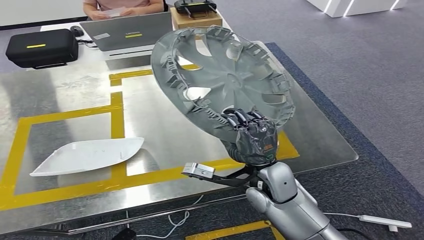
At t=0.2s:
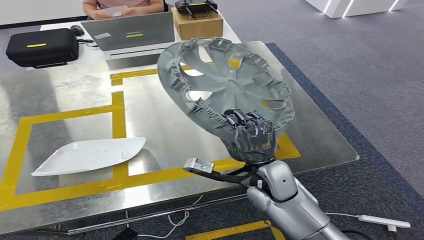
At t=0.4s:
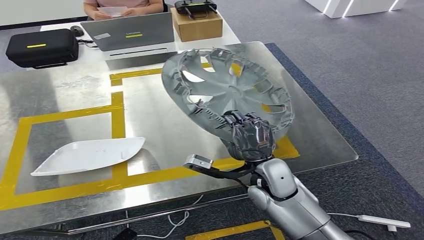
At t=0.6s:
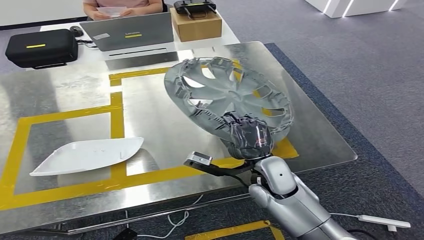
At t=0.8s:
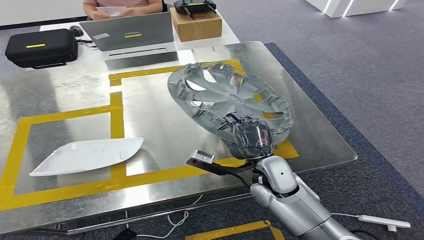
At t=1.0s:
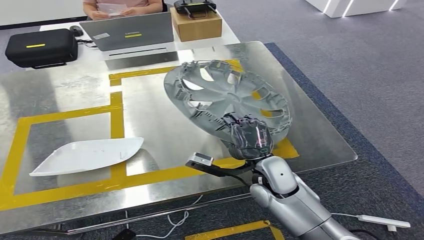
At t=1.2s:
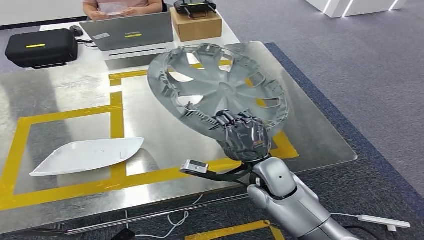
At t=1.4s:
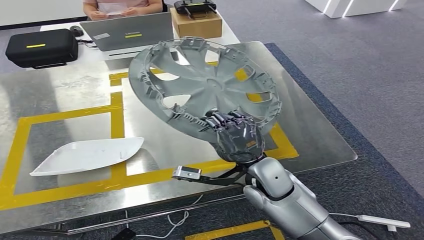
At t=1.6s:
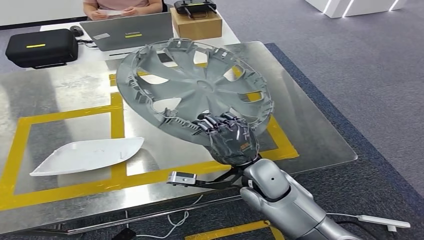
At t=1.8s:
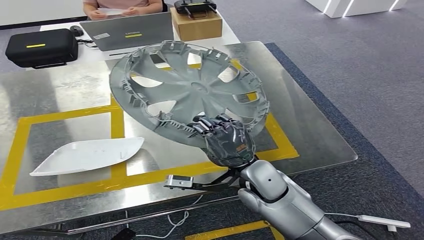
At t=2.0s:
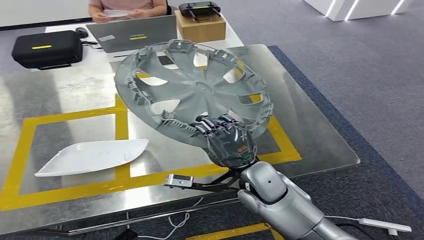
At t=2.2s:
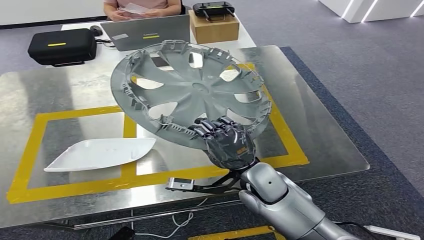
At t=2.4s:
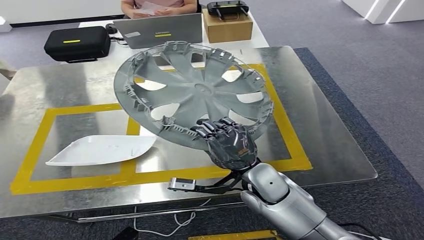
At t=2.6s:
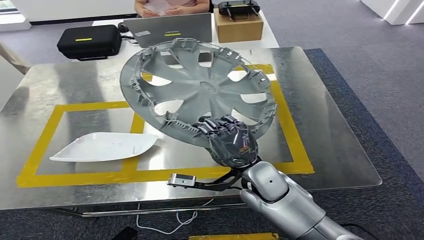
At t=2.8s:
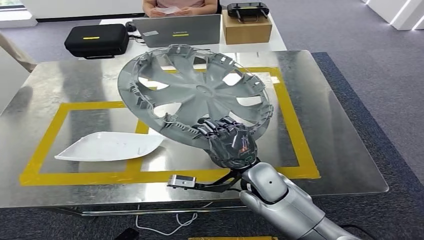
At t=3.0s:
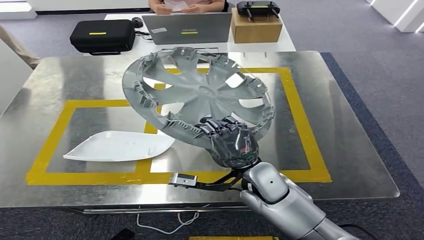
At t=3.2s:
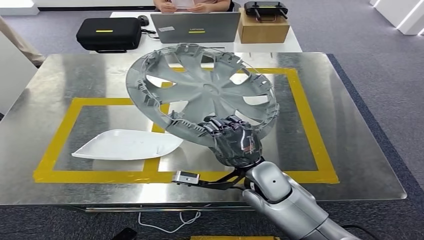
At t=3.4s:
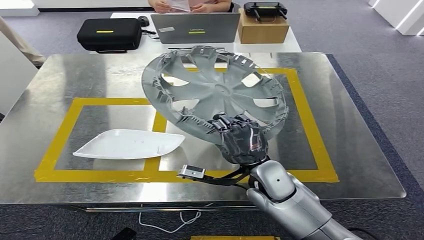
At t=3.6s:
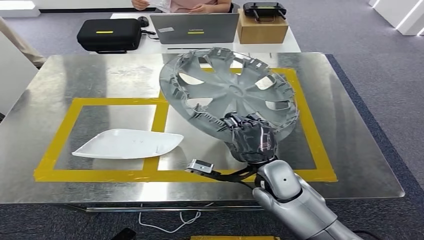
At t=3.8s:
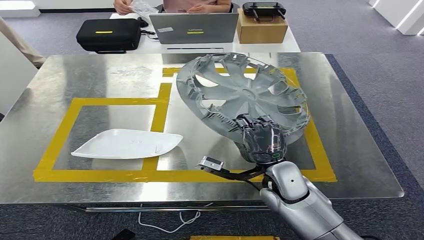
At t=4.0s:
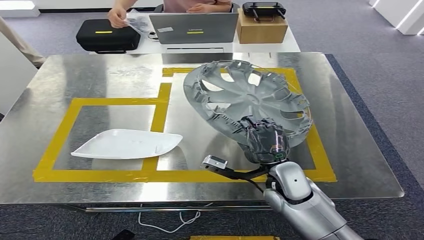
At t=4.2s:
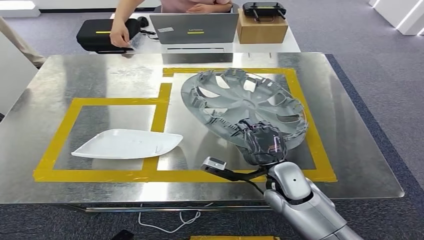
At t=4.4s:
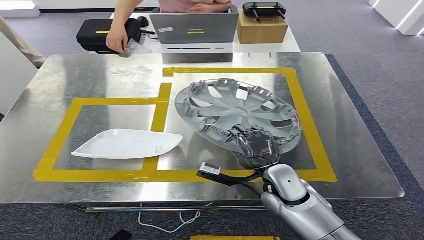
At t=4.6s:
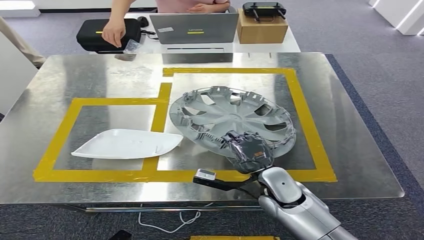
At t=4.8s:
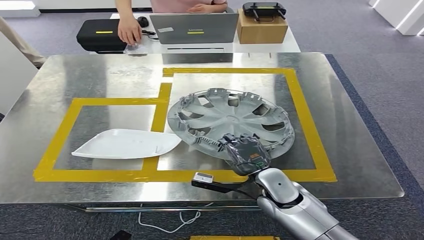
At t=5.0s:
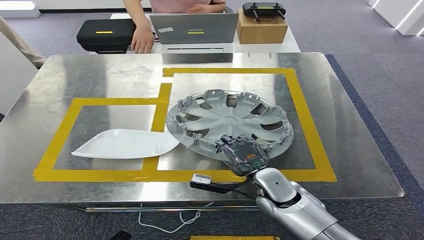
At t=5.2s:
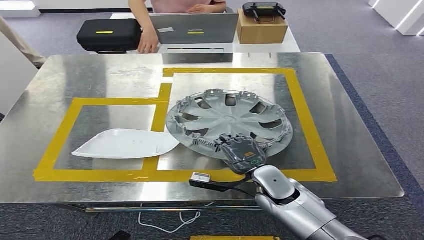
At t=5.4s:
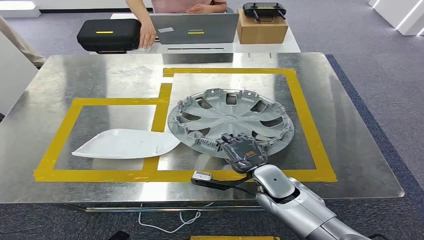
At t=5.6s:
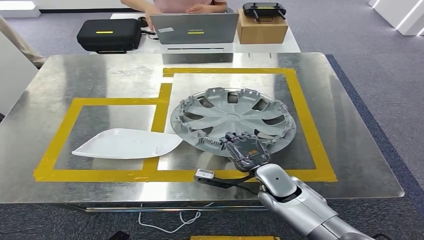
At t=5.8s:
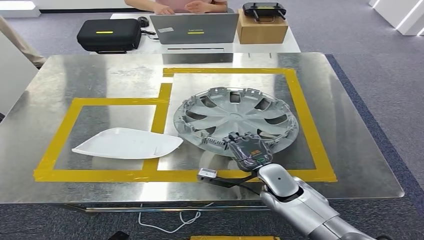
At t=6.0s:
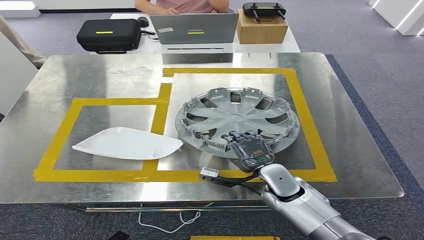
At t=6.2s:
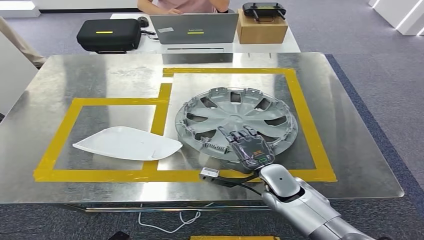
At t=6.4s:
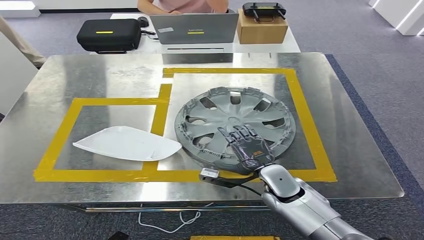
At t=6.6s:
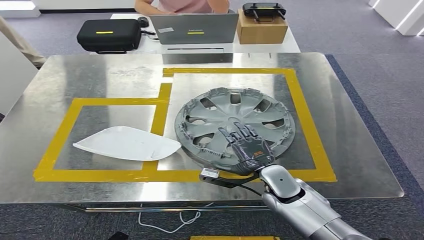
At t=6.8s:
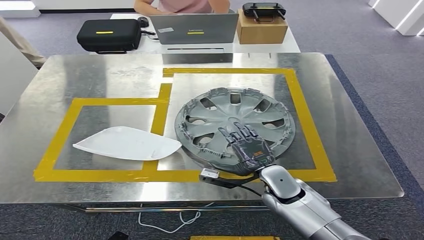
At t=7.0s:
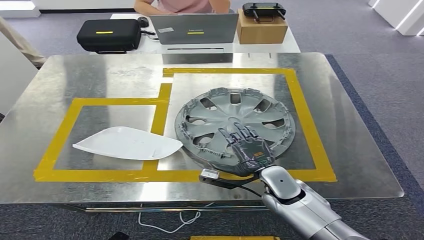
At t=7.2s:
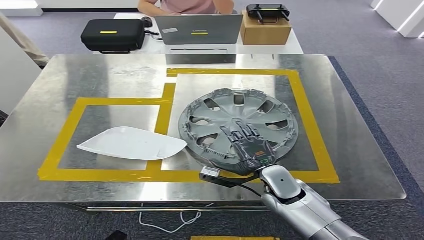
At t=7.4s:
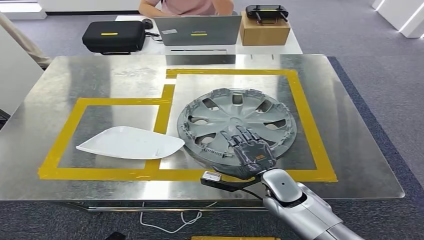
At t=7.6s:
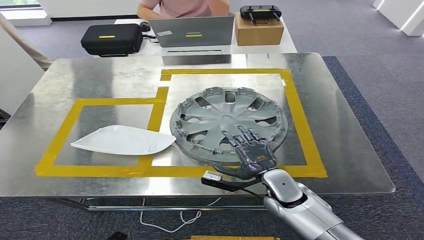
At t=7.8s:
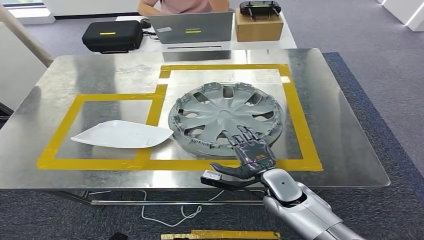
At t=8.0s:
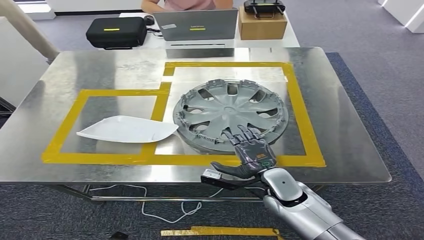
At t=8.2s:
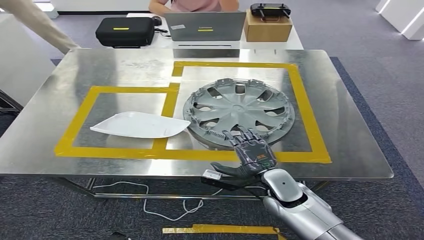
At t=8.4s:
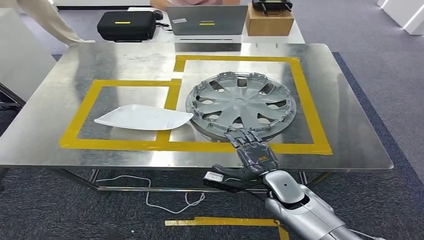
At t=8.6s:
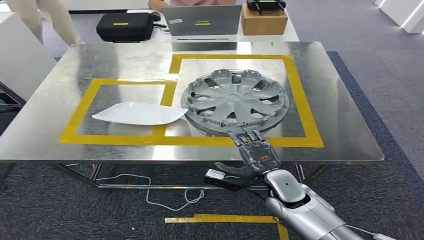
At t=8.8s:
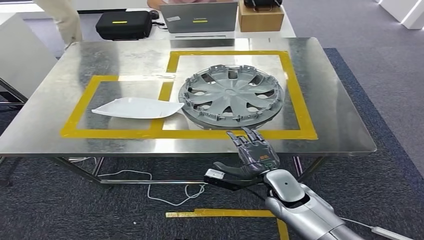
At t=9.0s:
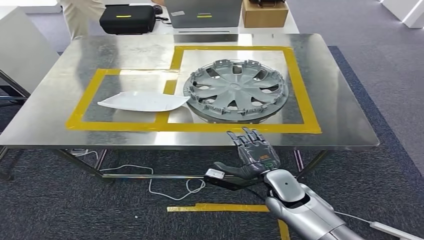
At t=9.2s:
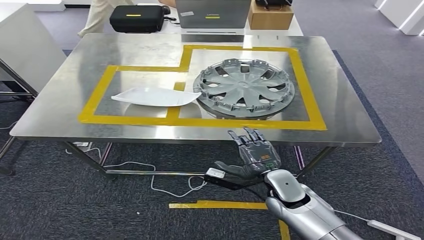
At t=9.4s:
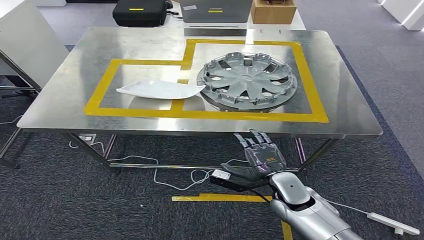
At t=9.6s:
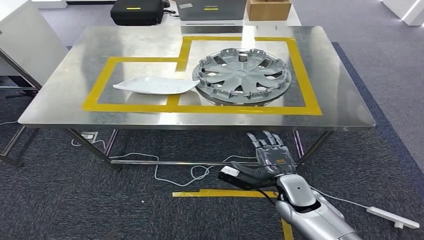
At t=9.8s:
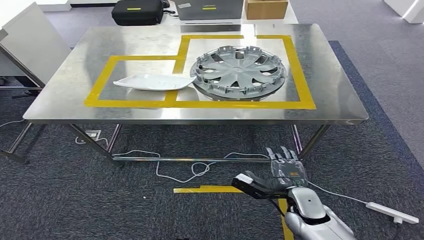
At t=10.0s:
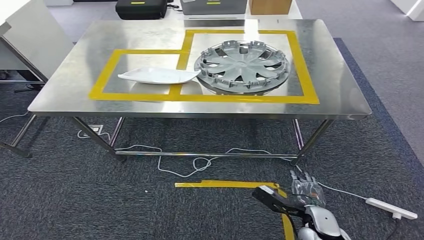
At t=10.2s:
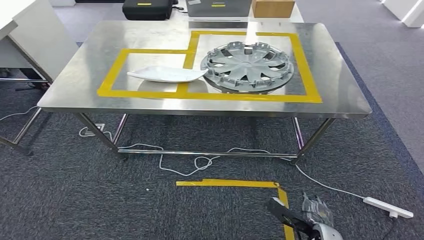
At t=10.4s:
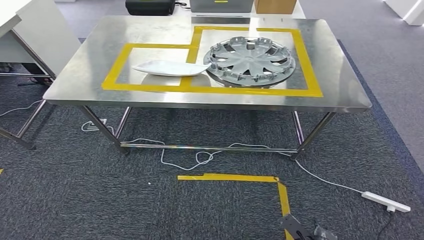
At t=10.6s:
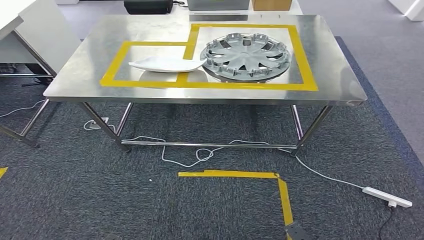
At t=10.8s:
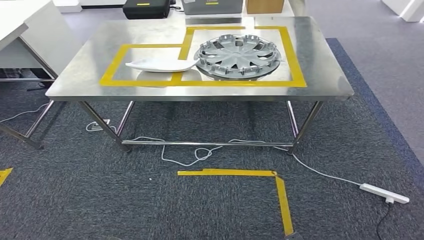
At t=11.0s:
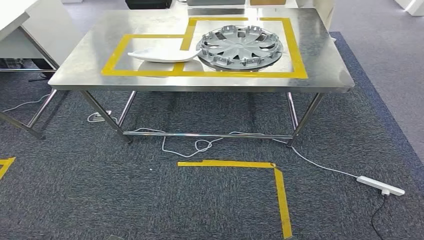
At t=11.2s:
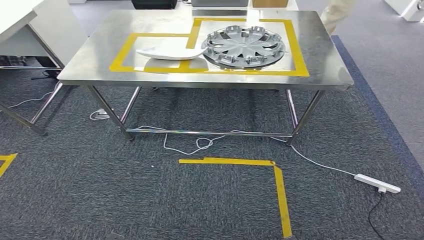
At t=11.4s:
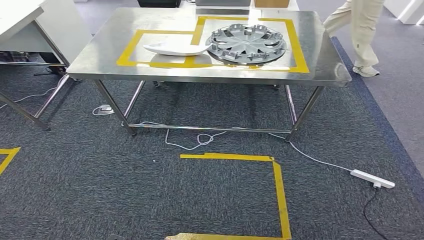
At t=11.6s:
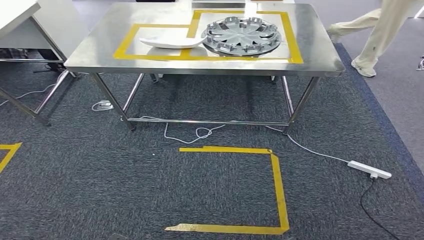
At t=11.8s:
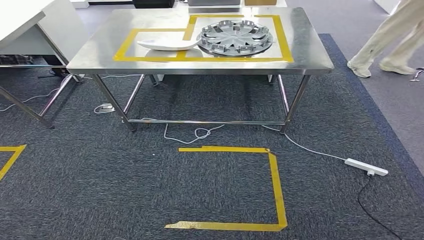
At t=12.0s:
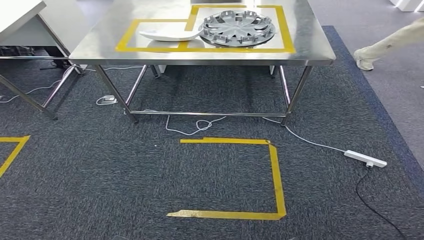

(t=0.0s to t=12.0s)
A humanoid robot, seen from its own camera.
Step, t=0.0s - t=12.0s: Insert the small parts into the corresponding holes on the workbench.
t=0.0s - t=1.6s: The hands make only small movements.
t=4.4s - t=6.0s: The hands make only small movements.

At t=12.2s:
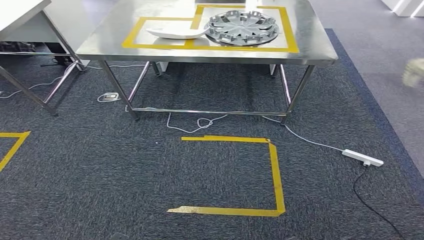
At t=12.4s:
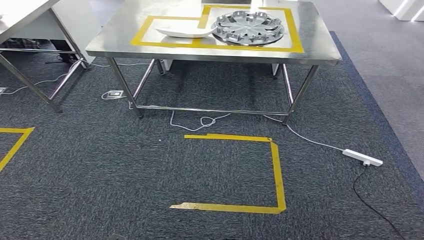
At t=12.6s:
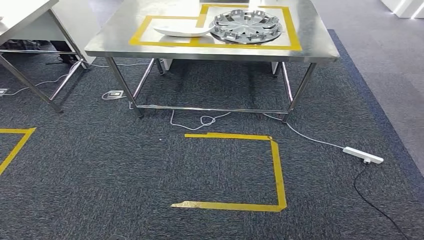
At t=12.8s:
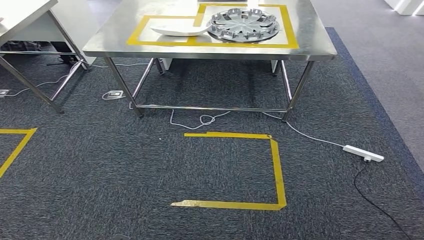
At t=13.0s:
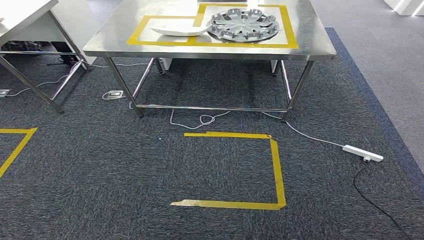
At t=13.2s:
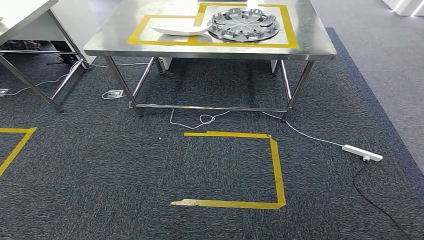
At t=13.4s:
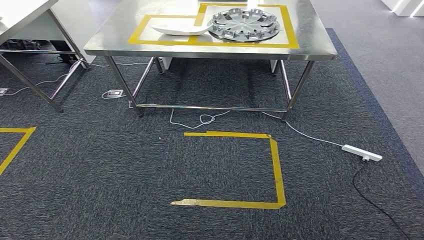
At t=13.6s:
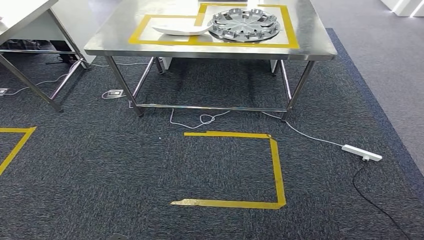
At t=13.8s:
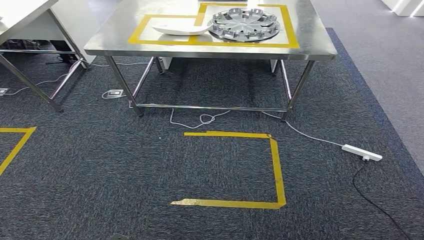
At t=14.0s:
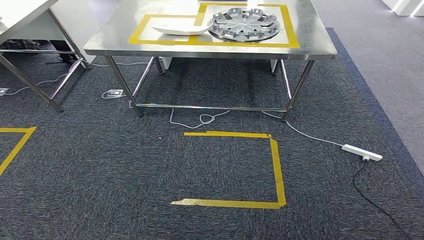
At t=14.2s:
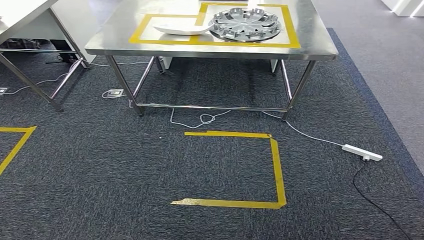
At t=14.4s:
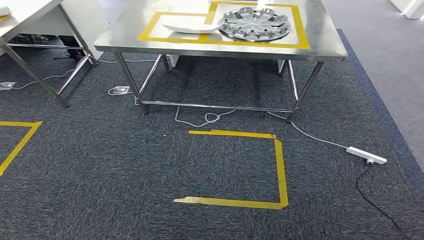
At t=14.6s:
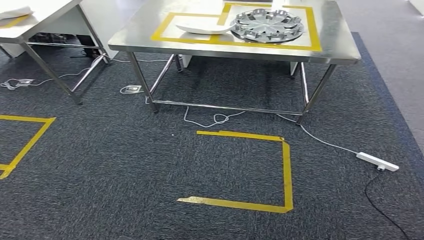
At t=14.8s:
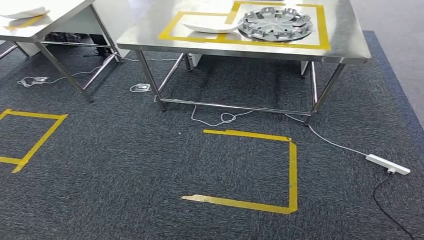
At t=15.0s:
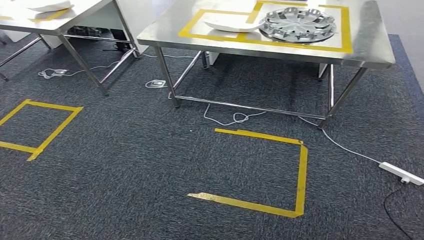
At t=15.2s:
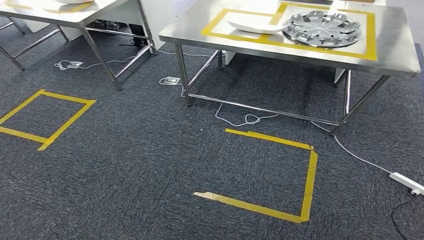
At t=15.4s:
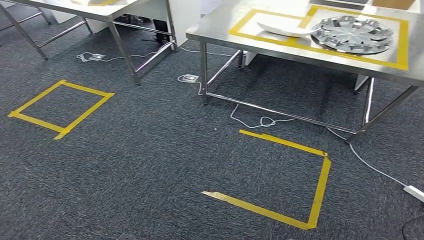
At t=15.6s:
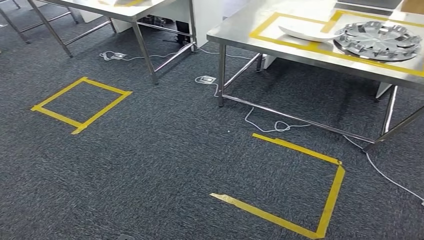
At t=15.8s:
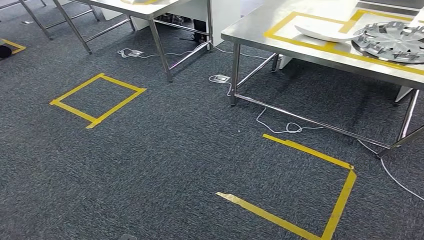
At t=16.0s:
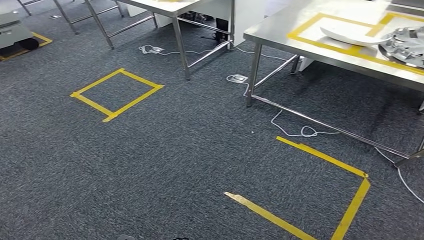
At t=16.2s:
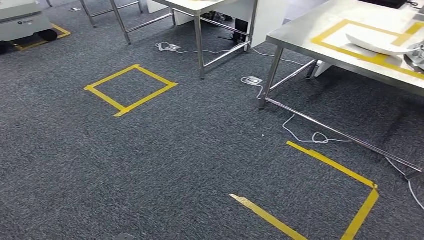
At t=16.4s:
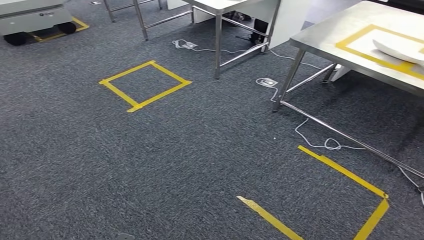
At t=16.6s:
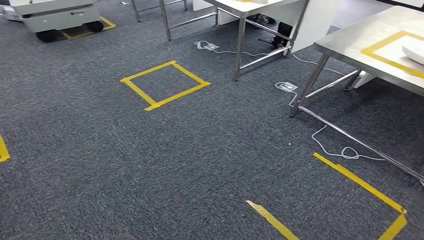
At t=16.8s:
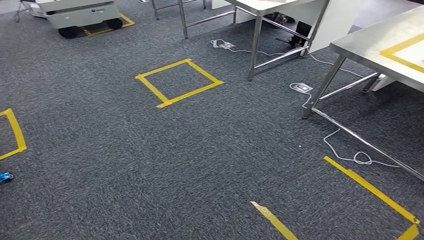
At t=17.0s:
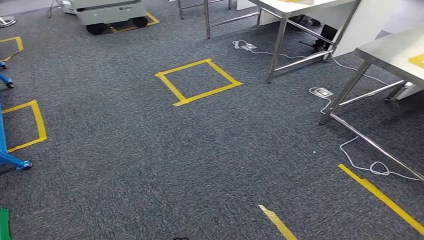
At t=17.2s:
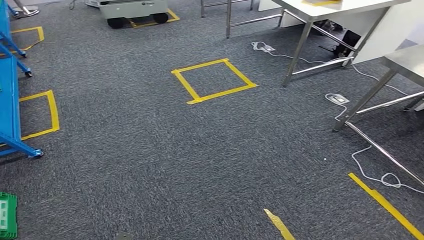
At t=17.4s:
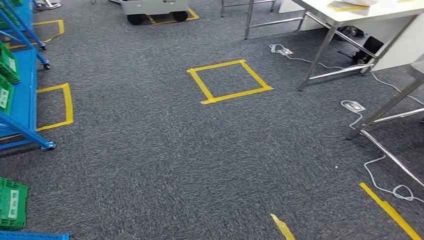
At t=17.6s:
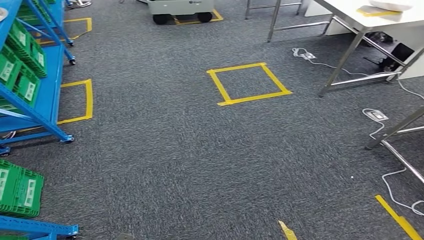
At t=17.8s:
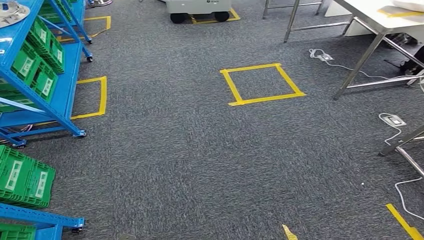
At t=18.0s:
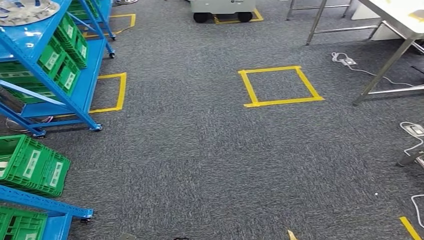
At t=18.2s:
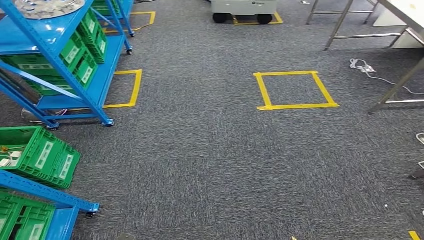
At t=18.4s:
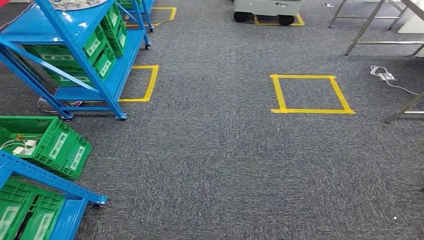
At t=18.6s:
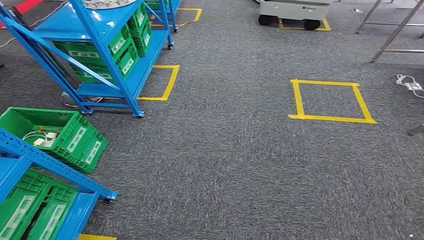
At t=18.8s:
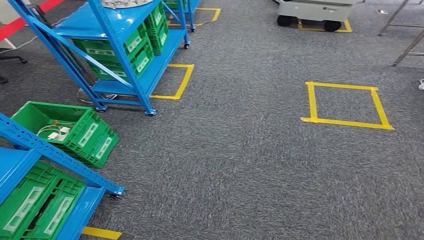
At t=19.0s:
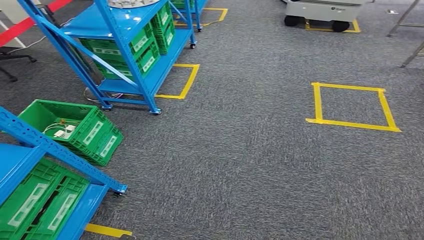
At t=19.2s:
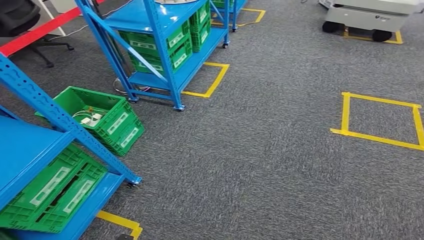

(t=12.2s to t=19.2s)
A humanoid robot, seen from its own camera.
t=12.2s - t=13.6s: Both hands stay about where they are.
